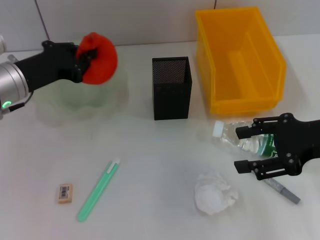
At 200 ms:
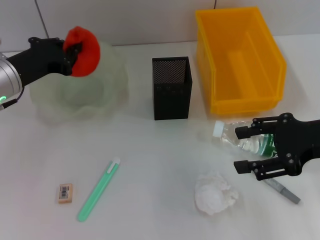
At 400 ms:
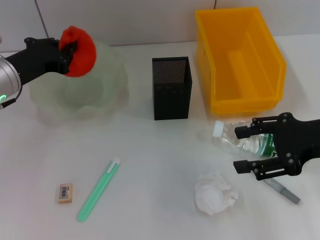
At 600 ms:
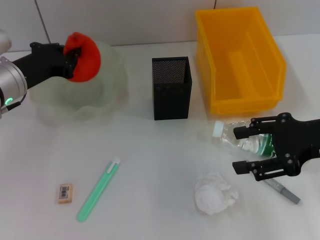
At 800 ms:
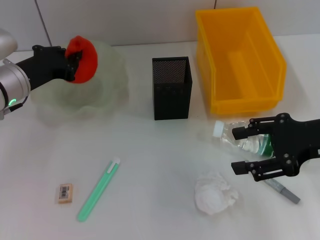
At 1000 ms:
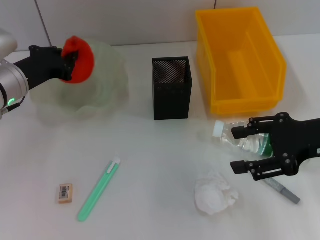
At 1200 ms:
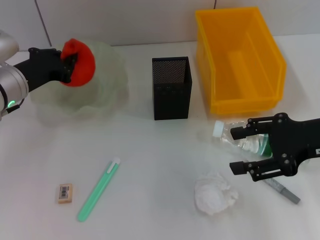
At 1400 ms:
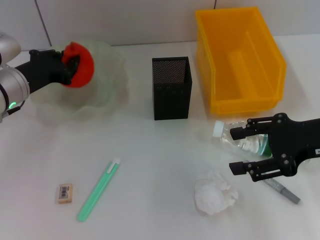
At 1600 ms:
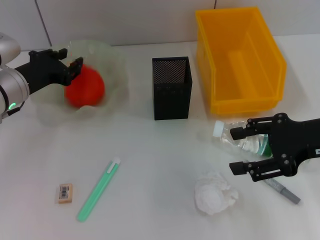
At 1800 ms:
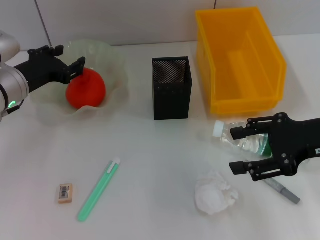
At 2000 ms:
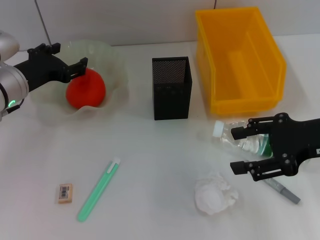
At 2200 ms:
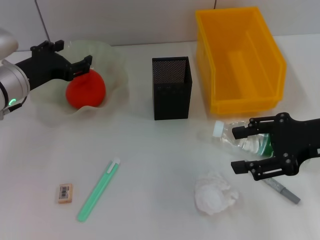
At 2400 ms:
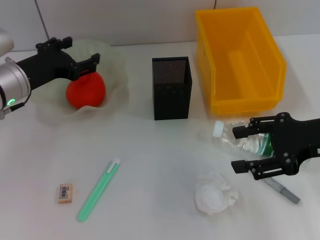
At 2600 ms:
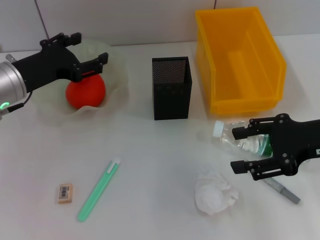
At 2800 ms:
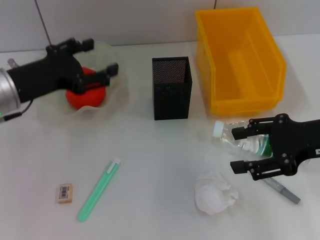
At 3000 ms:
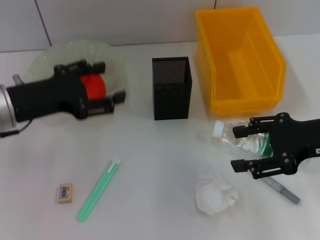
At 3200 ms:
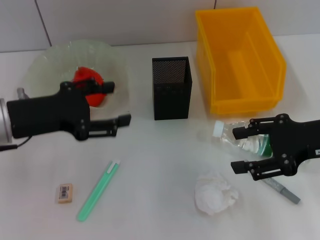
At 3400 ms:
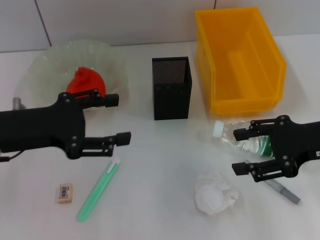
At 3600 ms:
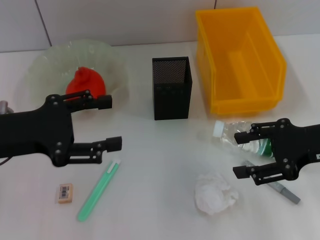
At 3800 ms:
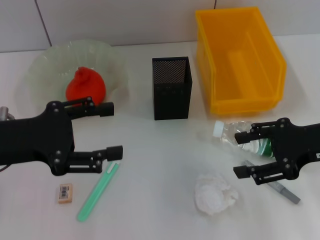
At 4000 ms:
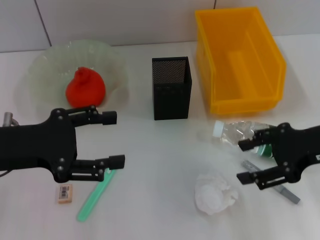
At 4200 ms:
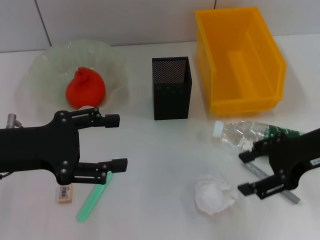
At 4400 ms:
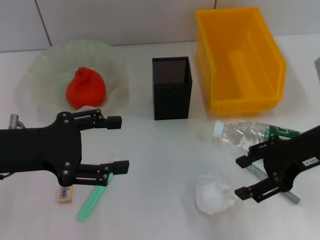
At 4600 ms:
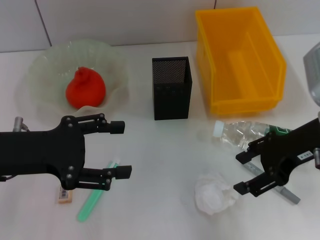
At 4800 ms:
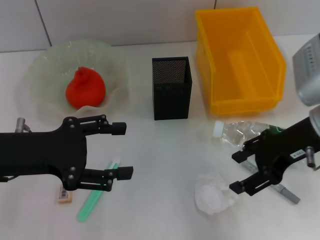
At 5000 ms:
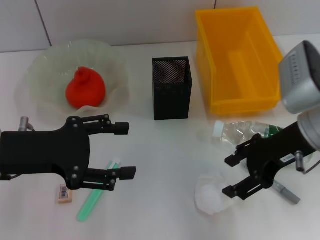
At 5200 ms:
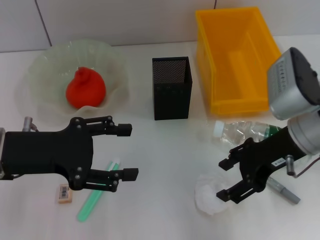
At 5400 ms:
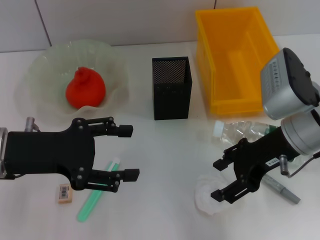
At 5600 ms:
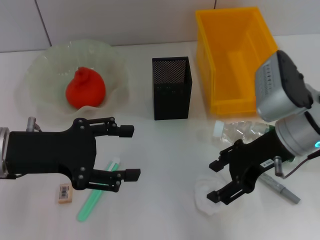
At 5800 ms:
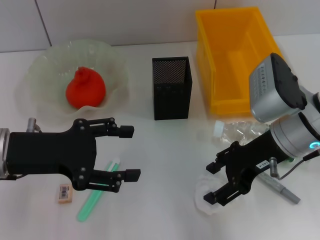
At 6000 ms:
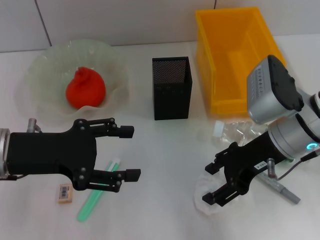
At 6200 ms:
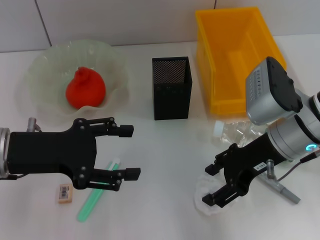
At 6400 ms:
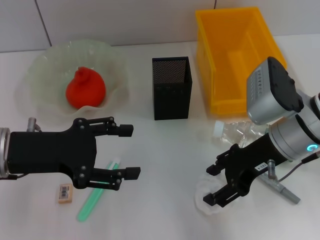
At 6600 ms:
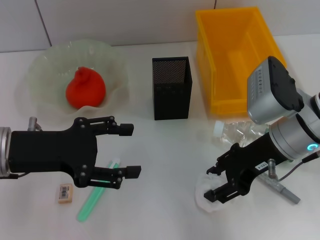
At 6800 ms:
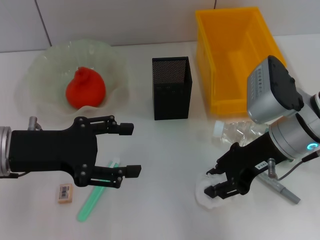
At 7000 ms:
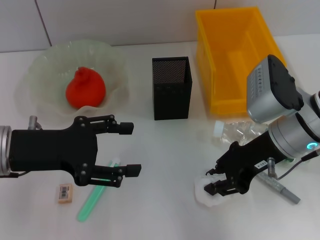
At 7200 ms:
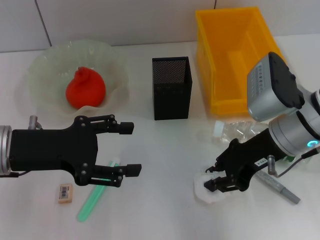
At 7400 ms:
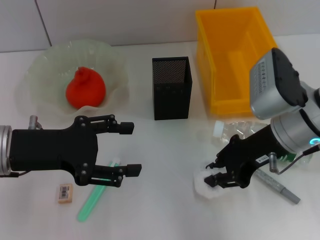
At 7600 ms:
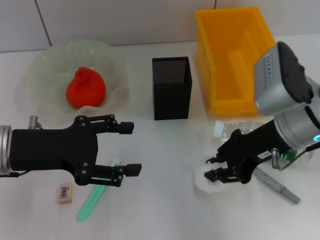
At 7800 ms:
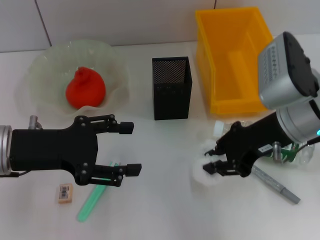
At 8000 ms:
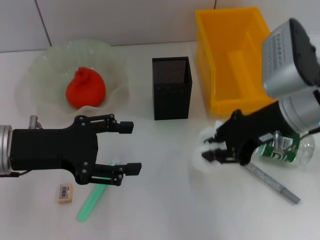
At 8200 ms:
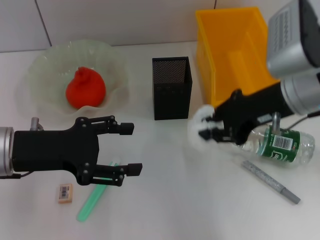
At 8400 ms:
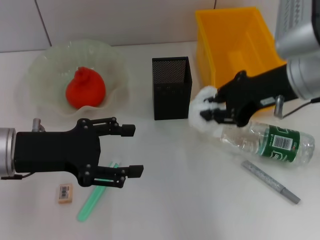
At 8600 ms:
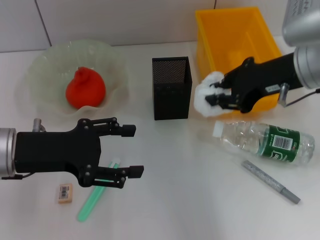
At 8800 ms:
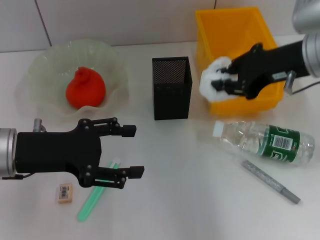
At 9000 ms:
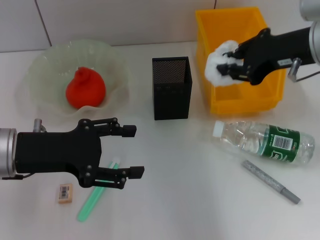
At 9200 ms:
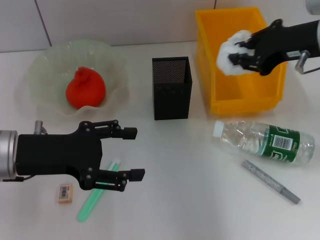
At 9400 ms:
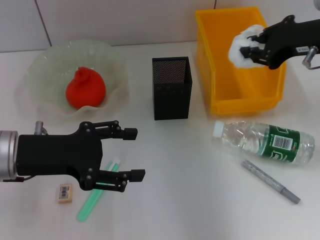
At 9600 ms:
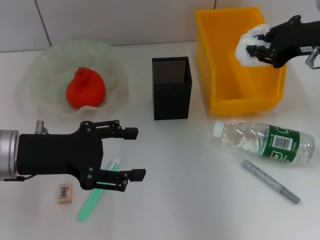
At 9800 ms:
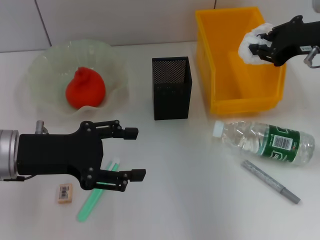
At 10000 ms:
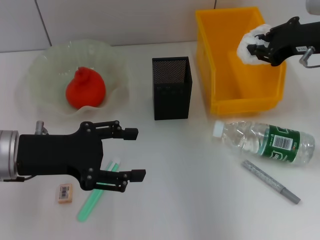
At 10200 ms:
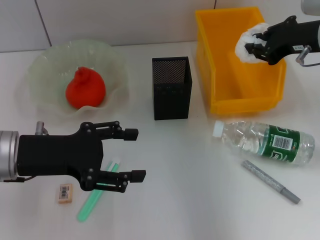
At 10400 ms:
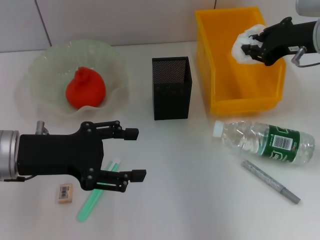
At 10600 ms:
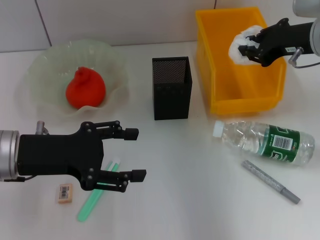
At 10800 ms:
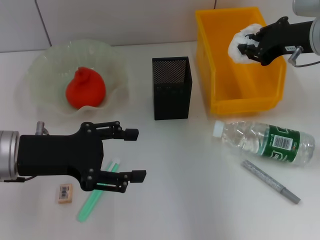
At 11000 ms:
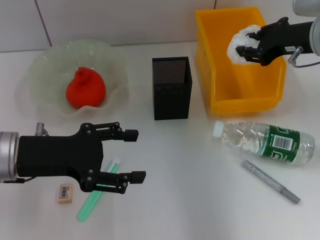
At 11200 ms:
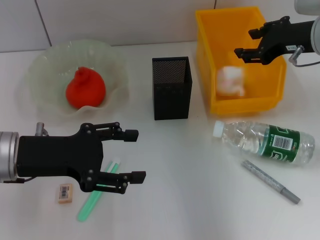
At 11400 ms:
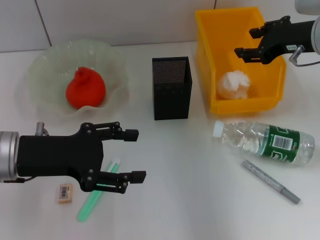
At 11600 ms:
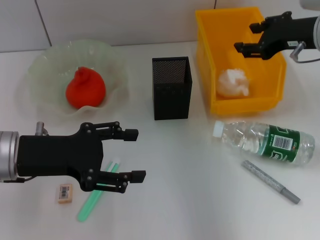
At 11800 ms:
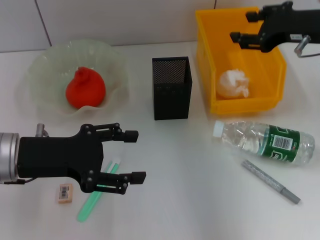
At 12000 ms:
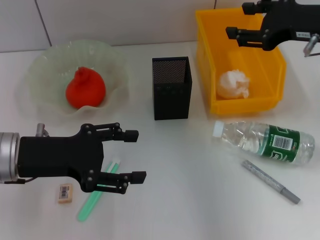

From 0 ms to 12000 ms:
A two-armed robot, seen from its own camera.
Step, from 1800 ms to 6800 ms: Grab the paper ball with the right hand.
Step, from 7000 ms to 11800 ms: Place the paper ball into the trash can with the right hand.
From 0 ms to 1600 ms: There are only small adjustments of the grippers.
From 1600 ms to 3000 ms: The left gripper heads backward, covering some 5 cm, and opens up.
From 3000 ms to 4400 ms: The left gripper moves backward, about 5 cm.
From 4400 ms to 6000 ms: The right gripper is displaced to the left by some 5 cm.
From 6000 ms to 7600 ms: The right gripper closes its fingers.
From 7600 ms to 9000 ms: The right gripper travels upward by approximately 10 cm.
From 9000 ms to 10400 ms: The right gripper moves roughly 5 cm.
From 10400 ms to 12000 ms: The right gripper ends up about 5 cm from where it was, and opens.

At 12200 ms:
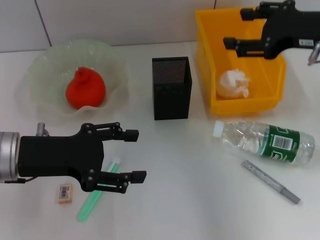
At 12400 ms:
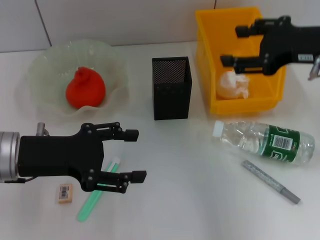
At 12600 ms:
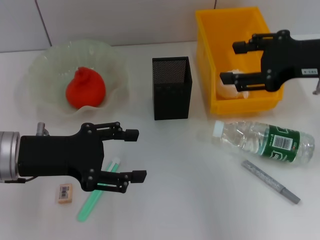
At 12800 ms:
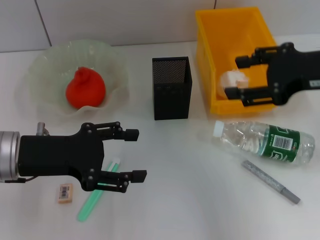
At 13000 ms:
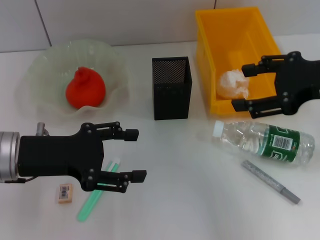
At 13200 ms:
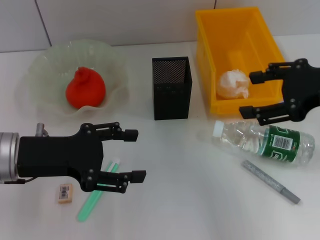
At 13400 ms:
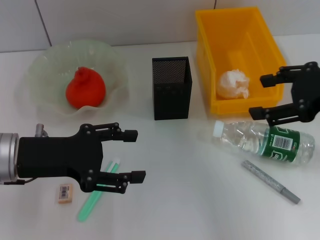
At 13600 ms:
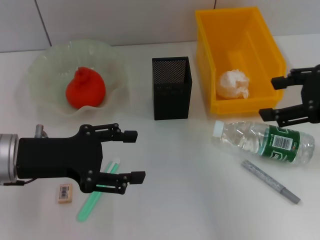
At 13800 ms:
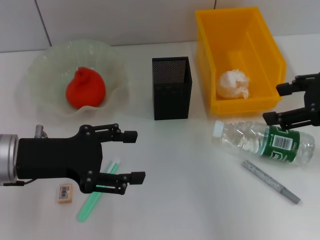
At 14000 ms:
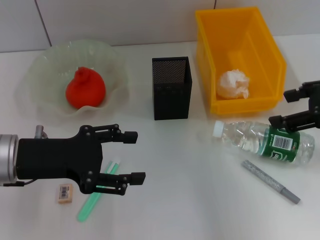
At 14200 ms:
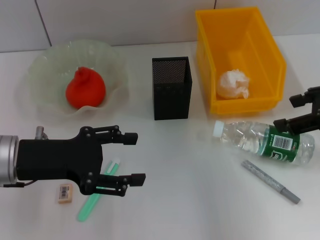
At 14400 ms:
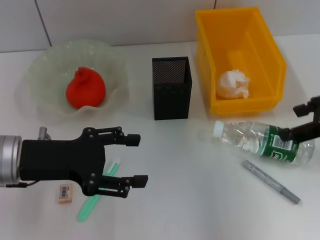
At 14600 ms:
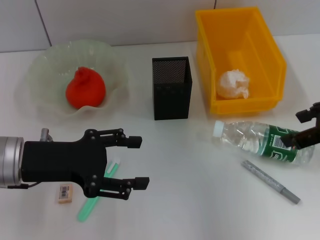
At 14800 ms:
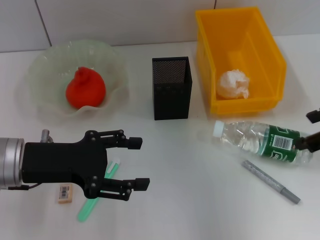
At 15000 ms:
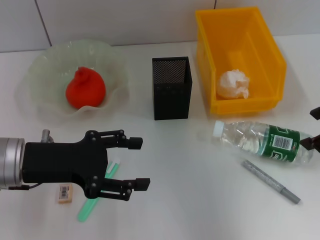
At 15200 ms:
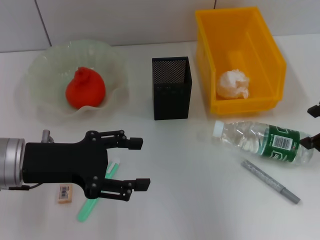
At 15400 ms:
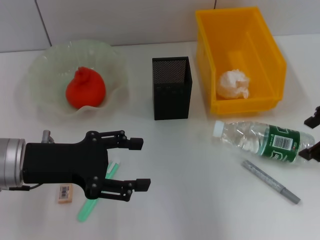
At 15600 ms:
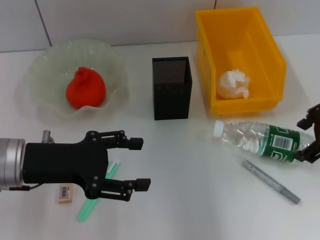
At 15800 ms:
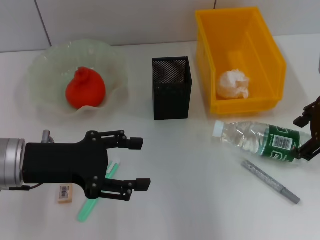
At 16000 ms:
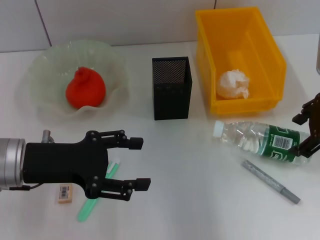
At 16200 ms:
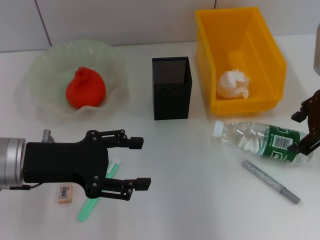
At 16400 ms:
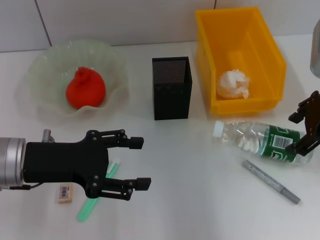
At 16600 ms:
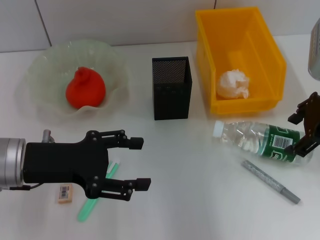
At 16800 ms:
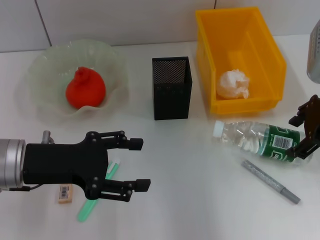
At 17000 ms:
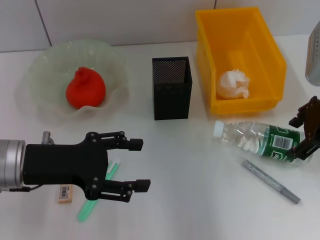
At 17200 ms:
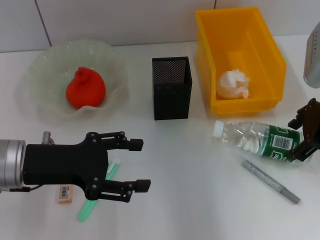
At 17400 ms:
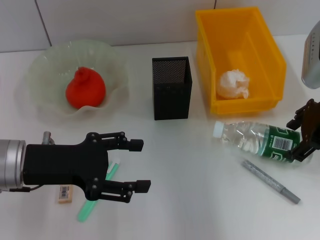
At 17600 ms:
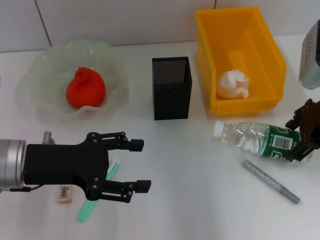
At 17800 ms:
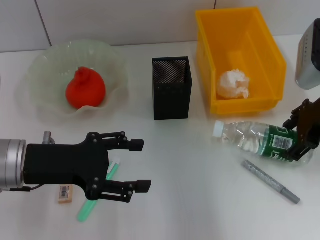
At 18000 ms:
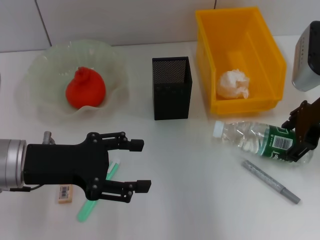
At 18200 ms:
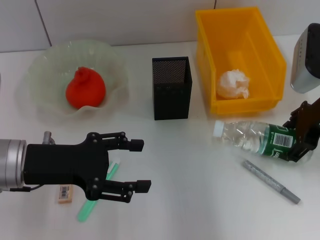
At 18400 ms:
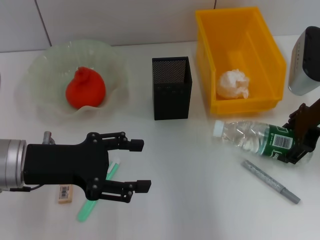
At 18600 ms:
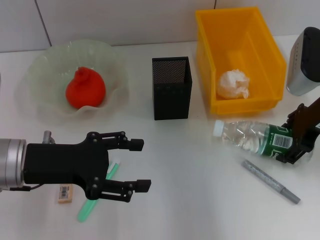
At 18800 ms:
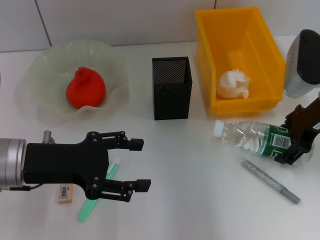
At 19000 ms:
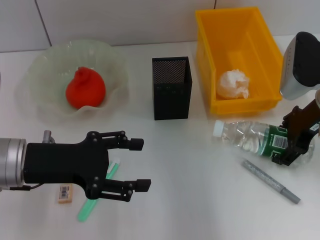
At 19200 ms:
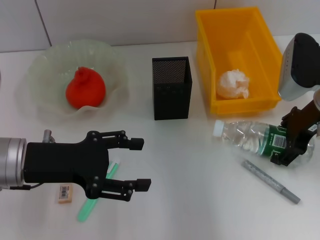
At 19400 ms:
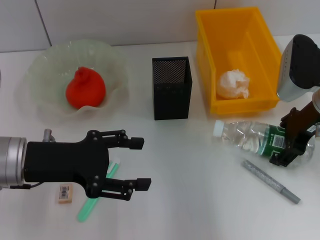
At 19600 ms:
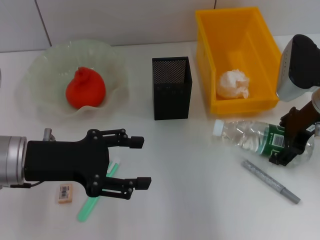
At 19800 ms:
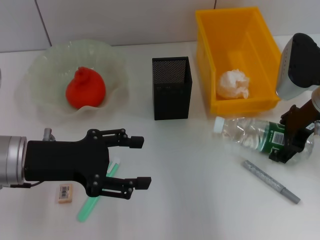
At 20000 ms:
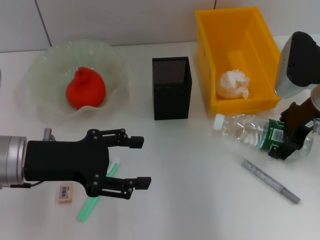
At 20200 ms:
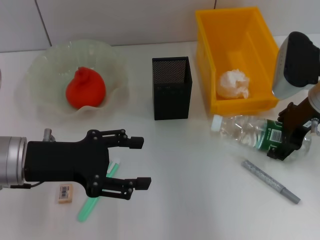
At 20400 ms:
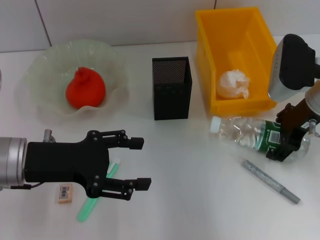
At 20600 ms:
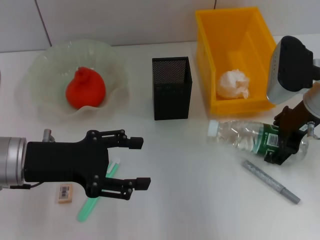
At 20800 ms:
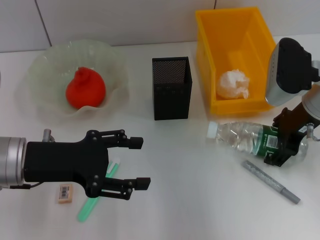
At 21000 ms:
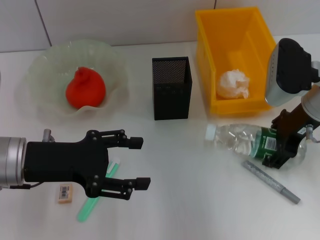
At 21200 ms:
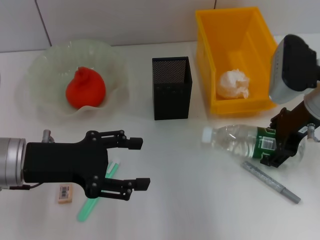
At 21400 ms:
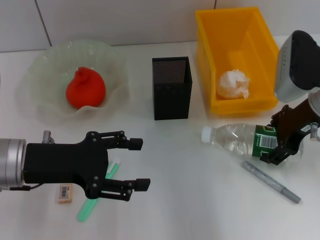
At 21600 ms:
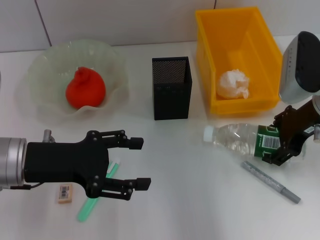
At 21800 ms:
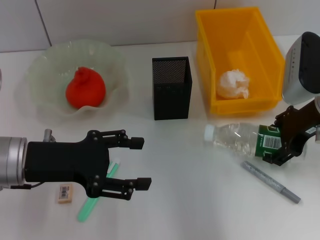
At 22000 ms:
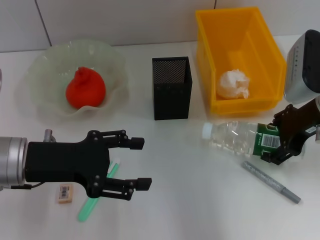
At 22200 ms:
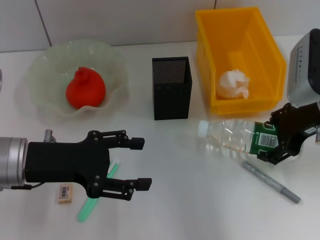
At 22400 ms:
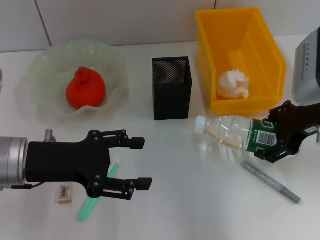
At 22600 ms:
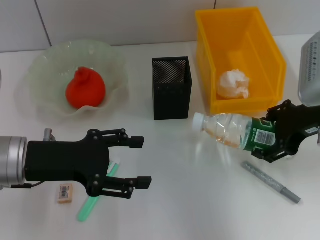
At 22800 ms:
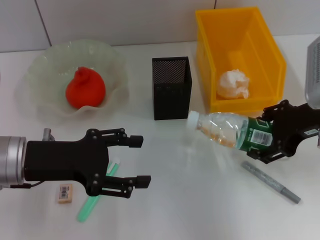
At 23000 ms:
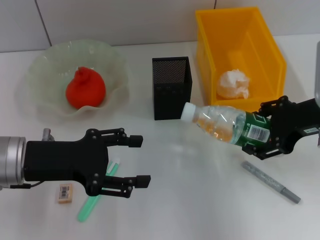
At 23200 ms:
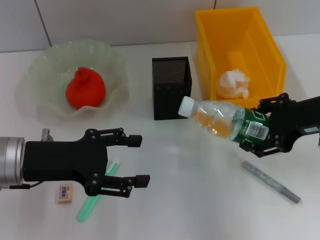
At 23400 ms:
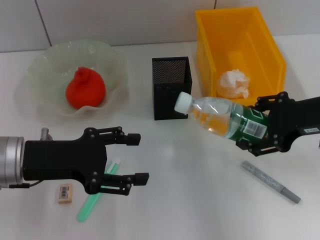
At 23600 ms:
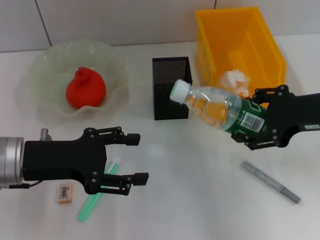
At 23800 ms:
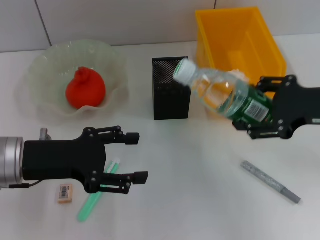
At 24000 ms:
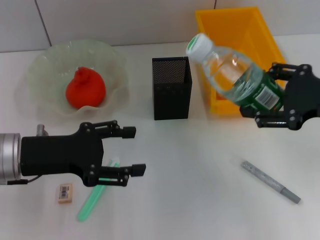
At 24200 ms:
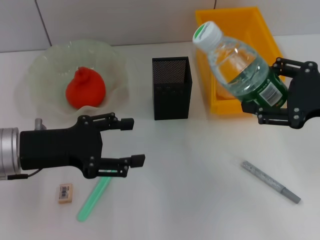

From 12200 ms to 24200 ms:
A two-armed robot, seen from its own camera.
Step, from 12200 ms to 20800 ms: Grab the water bottle with the right hand.
From 12200 ms to 13800 ms: The right gripper moves backward, about 5 cm.
From 15200 ms to 16600 ms: The right gripper moves roughly 5 cm.
From 16600 ms to 19800 ms: There are only small adjustments of the grippers.
From 19800 ms to 22600 ms: There are only small adjustments of the grippers.
From 22600 ms to 24200 ms: The right gripper heads backward, covering approximately 5 cm.
